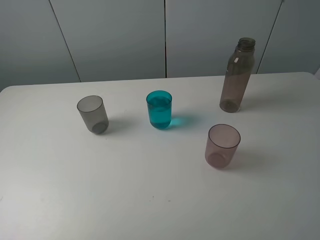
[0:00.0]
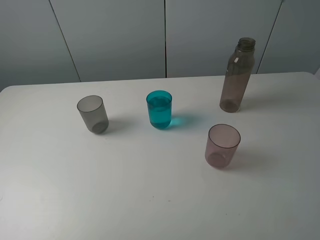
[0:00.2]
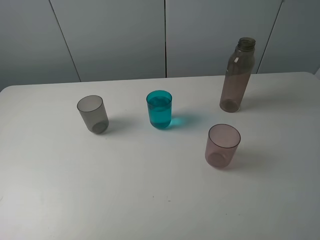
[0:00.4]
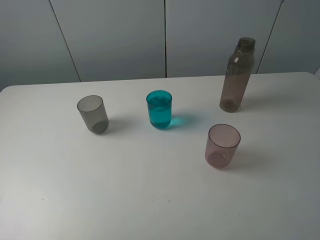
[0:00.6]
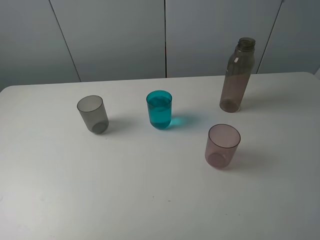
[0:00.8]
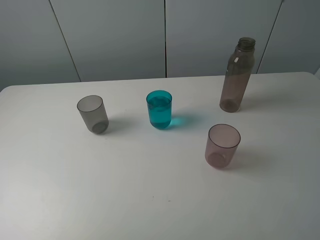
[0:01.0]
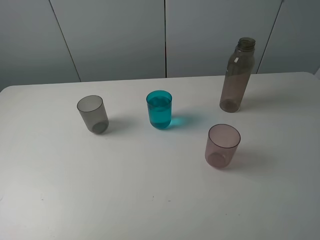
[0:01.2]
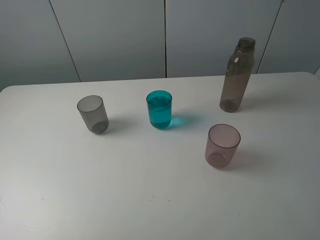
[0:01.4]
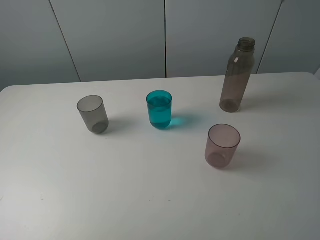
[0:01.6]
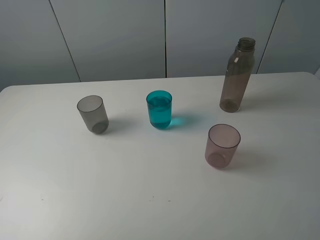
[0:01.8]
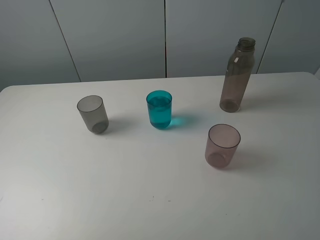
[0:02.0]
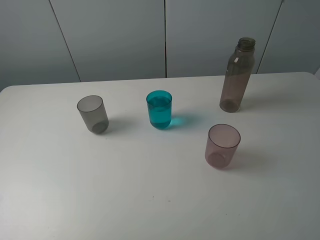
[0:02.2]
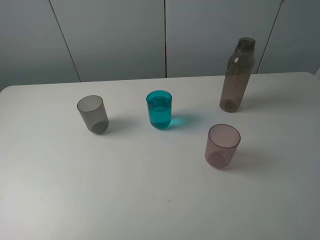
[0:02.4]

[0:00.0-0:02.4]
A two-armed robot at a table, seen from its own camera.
Task of the whole recording: pick up the bottle filled with water and pour water into the middle cup of the three cups.
0:01.2 to 0:02.4: Neither gripper changes place.

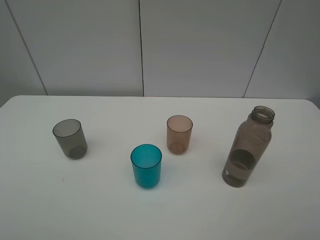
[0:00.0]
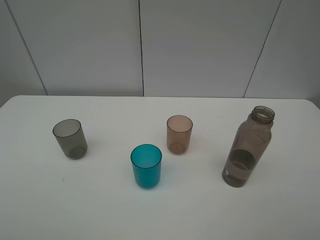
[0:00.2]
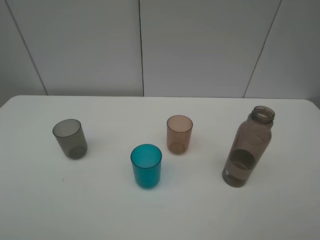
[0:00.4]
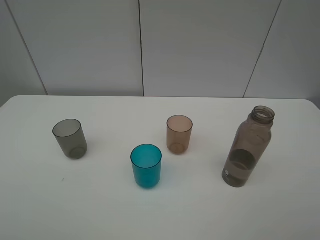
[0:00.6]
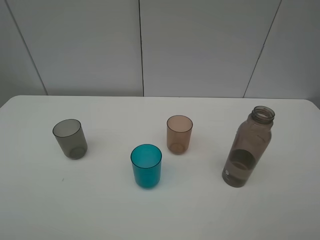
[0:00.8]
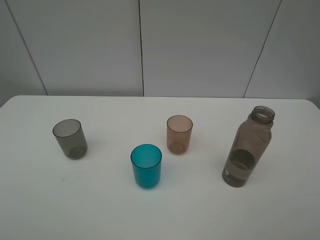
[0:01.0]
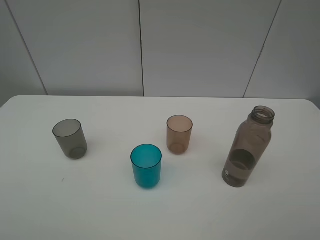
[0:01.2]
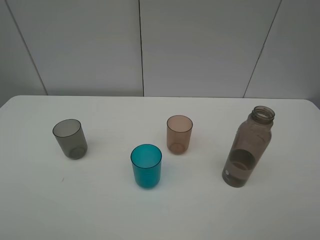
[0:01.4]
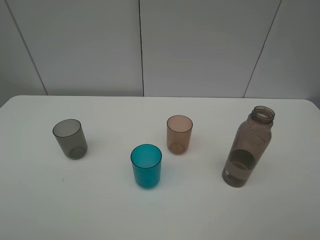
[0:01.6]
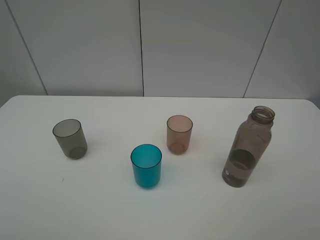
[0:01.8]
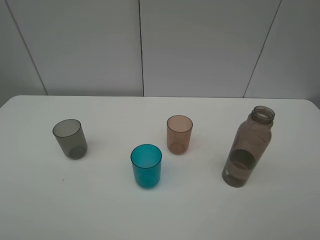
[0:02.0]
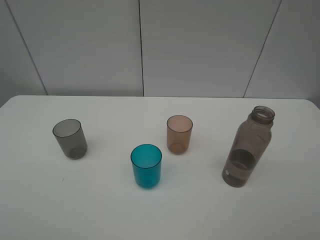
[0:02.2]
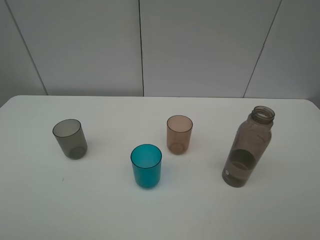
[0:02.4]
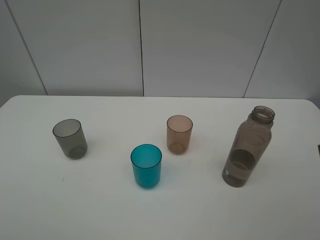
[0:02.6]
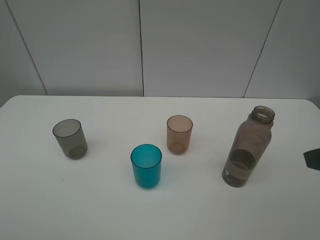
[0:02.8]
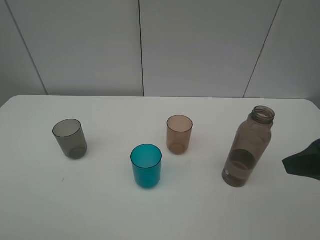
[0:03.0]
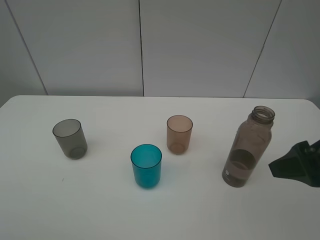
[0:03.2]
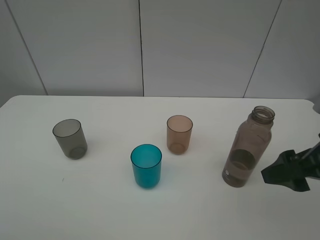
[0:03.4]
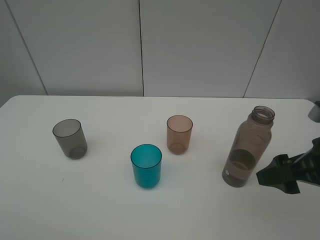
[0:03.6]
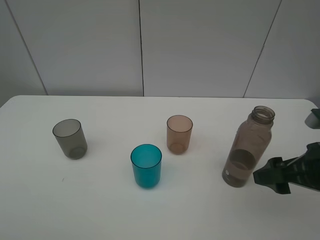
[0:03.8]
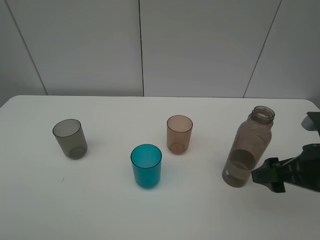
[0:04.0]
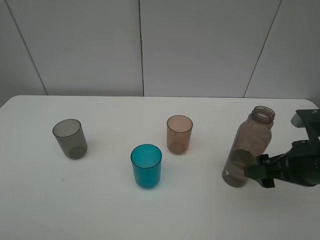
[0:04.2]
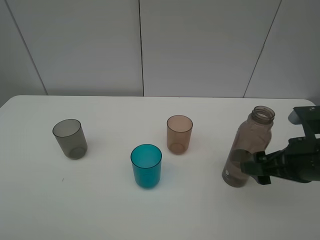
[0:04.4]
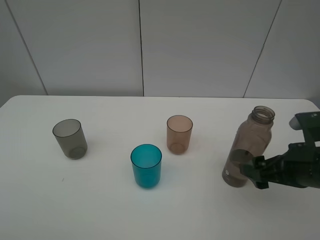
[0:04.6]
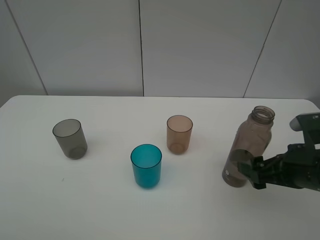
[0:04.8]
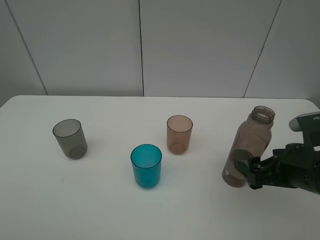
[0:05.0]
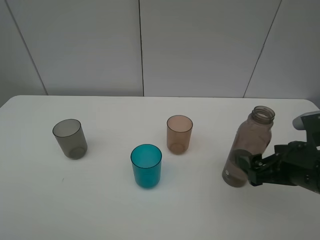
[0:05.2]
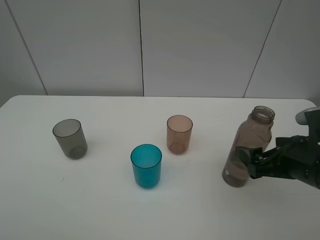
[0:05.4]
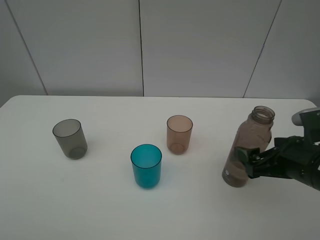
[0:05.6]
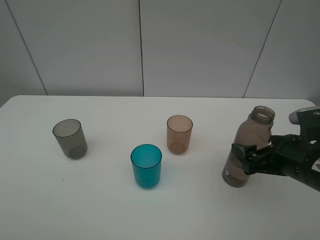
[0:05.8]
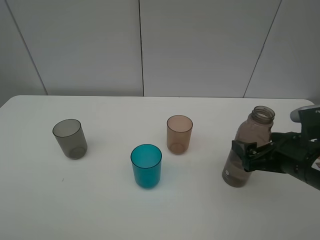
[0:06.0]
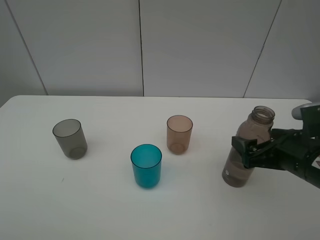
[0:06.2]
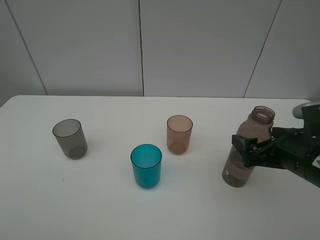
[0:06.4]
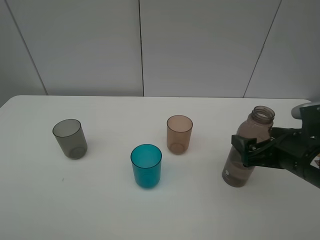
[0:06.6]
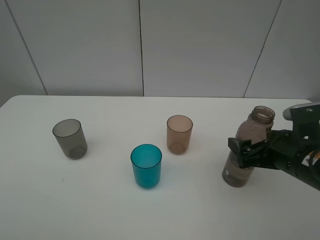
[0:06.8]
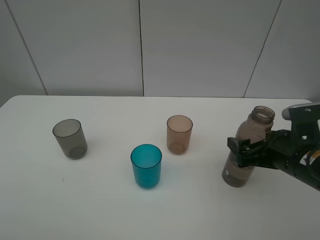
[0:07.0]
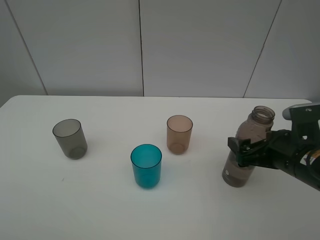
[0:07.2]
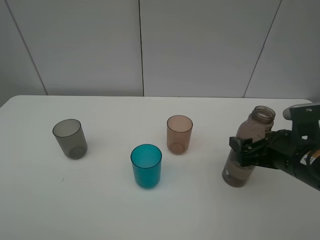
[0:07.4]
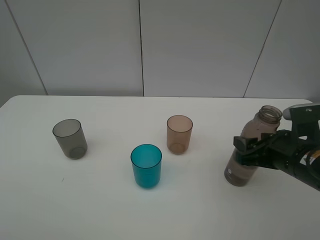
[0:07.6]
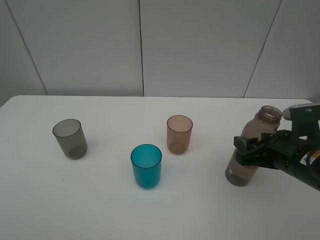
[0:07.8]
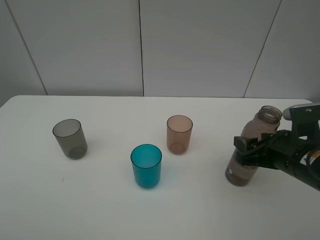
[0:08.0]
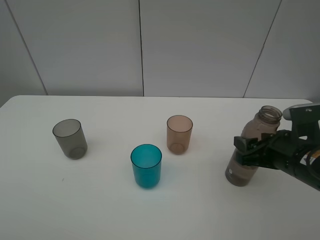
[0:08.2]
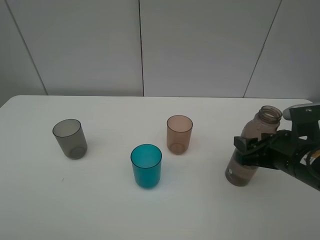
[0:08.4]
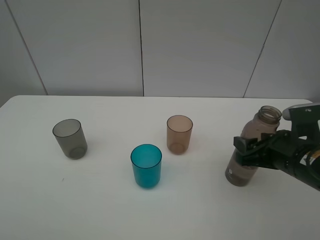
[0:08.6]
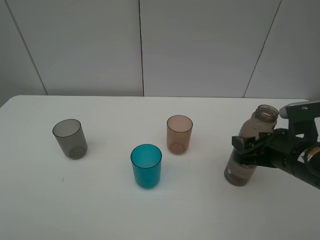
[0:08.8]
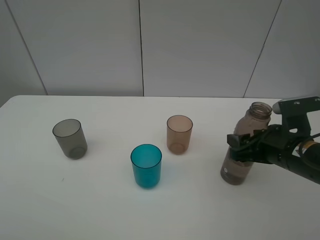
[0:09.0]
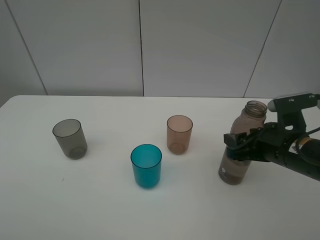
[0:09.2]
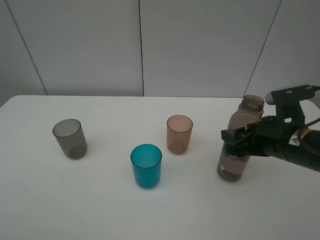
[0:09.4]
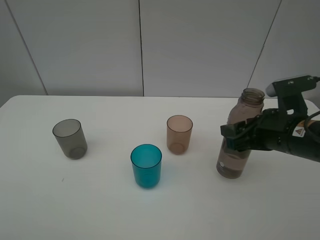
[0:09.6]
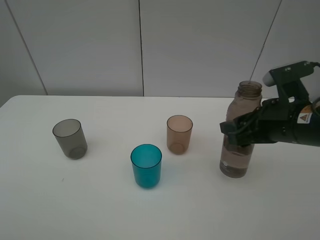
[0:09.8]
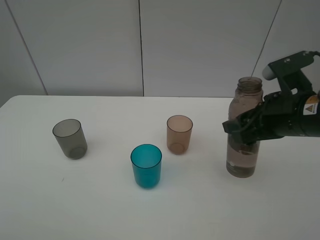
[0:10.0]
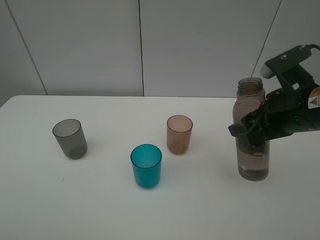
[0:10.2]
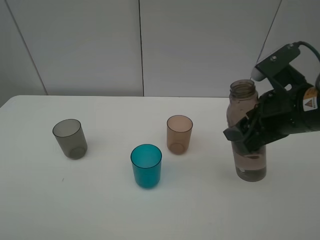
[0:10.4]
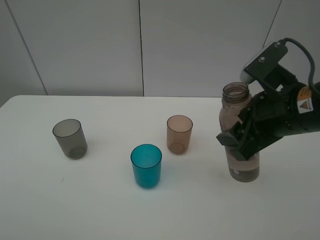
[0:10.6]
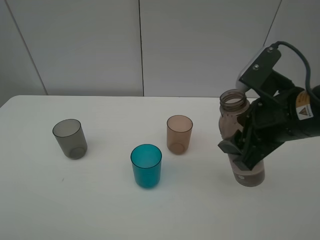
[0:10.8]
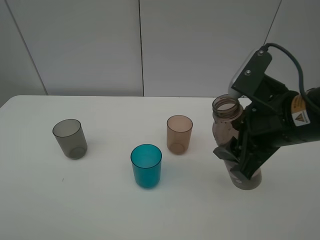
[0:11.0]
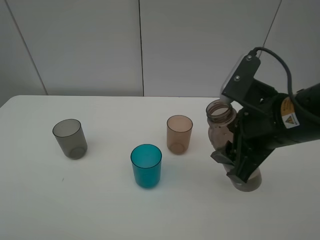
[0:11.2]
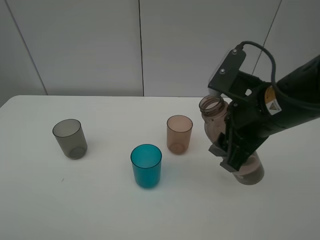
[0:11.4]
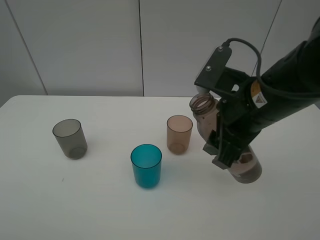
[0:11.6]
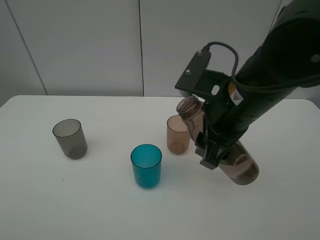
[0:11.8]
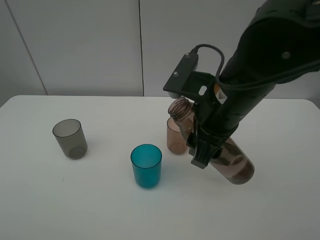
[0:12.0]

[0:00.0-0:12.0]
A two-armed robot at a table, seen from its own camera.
Task of the whole recording: pick up the bottle filled with water and pour water into the middle cup of the three cups.
Step, 0:00.0 to 0:09.0: Grasp the brown bottle with the right gripper.
0:00.0 to 0:01.6: Both grippers stay put.
0:01.6 to 0:03.0: The right gripper heads forward, covering approximately 15 cm.
0:03.0 to 0:04.4: The right gripper shifts approximately 10 cm downward.
0:06.0 to 0:07.6: The right gripper closes up.
0:07.6 to 0:09.0: The grippers make only small movements.
0:09.0 to 0:10.4: The right gripper moves upward, about 10 cm.
0:10.4 to 0:12.0: The right gripper heads to the left, covering roughly 10 cm.

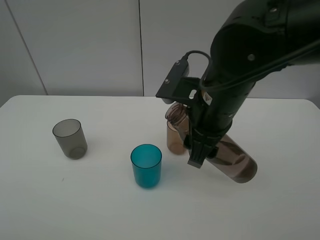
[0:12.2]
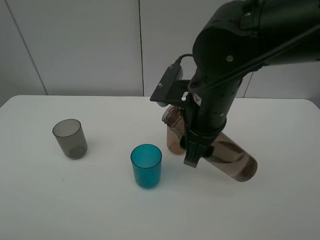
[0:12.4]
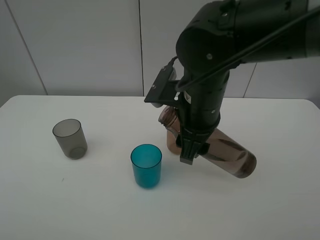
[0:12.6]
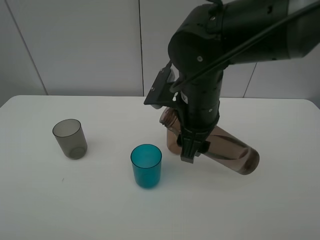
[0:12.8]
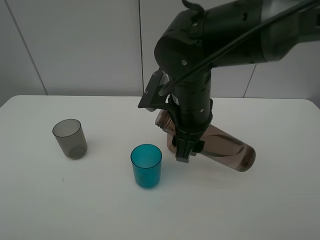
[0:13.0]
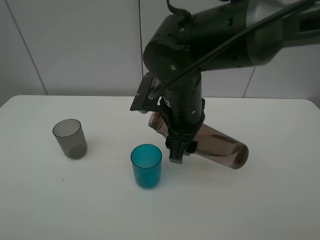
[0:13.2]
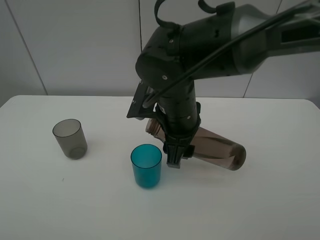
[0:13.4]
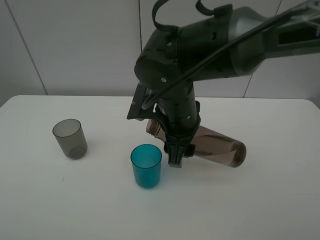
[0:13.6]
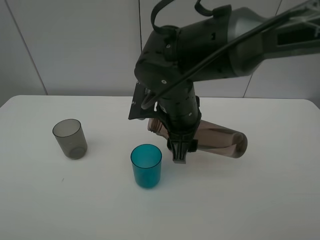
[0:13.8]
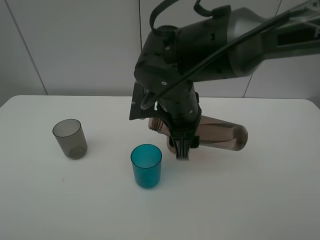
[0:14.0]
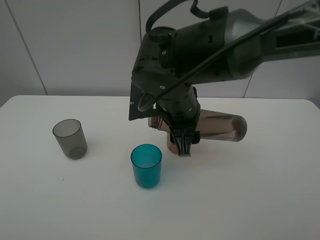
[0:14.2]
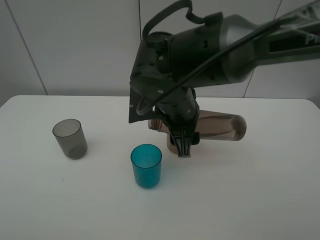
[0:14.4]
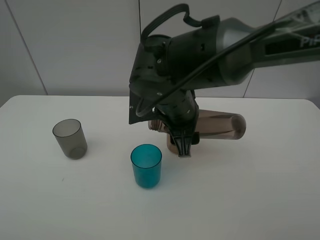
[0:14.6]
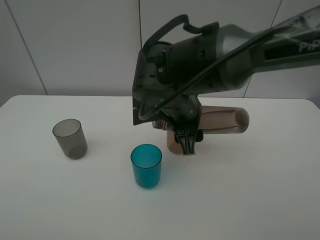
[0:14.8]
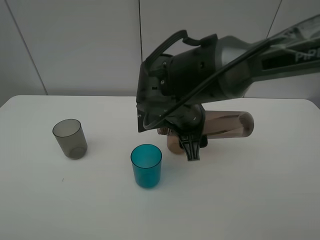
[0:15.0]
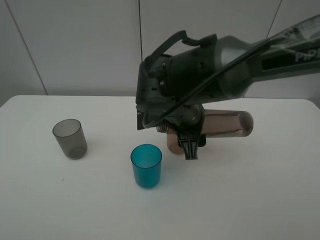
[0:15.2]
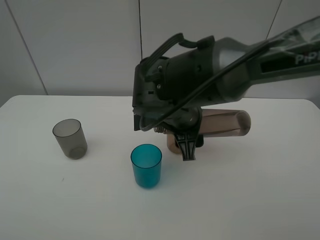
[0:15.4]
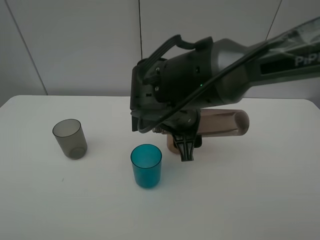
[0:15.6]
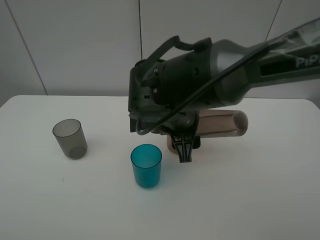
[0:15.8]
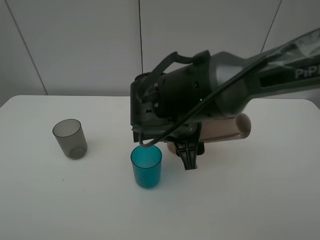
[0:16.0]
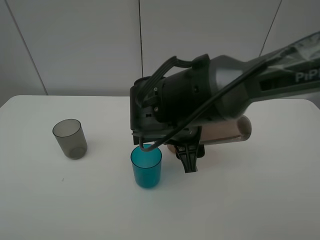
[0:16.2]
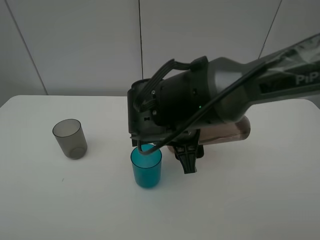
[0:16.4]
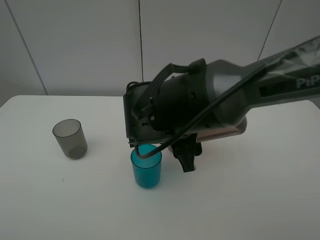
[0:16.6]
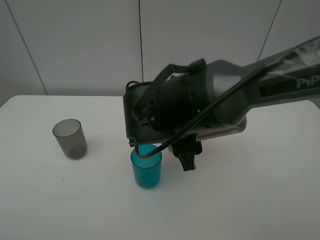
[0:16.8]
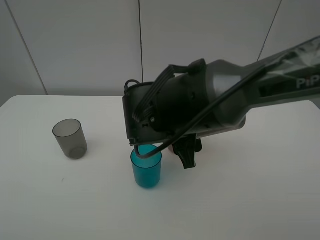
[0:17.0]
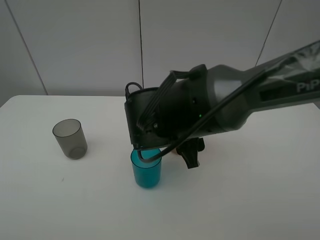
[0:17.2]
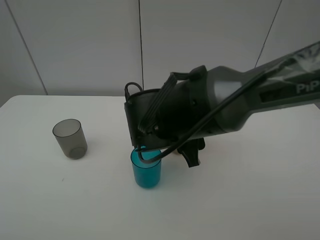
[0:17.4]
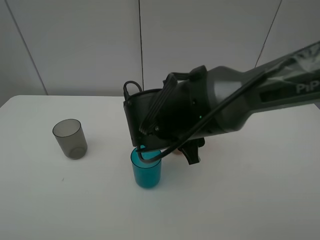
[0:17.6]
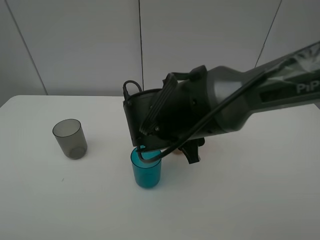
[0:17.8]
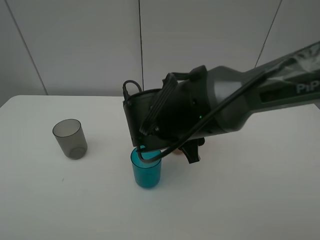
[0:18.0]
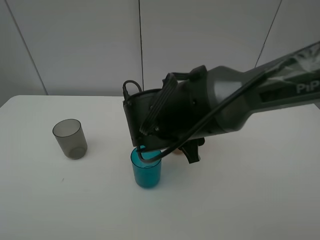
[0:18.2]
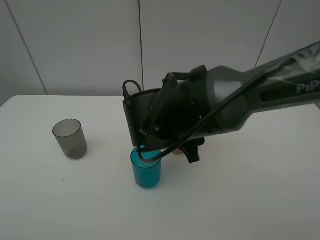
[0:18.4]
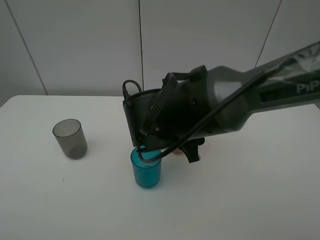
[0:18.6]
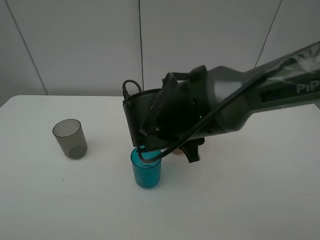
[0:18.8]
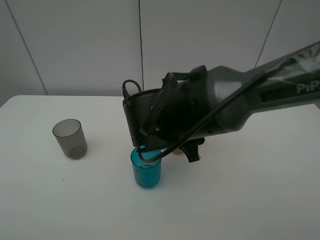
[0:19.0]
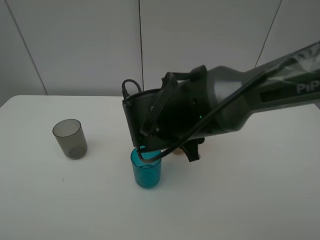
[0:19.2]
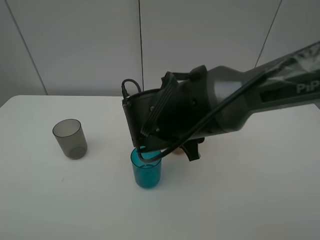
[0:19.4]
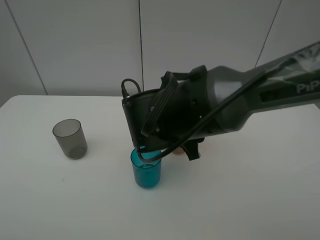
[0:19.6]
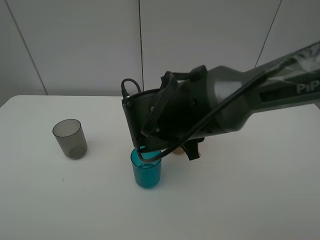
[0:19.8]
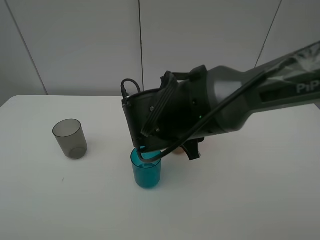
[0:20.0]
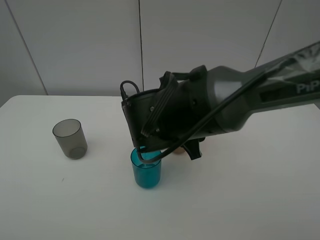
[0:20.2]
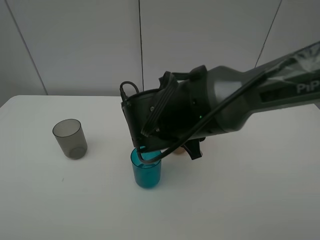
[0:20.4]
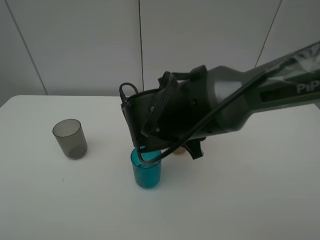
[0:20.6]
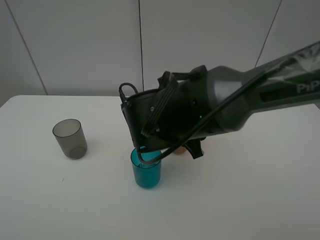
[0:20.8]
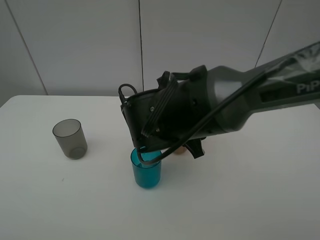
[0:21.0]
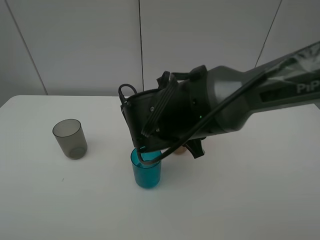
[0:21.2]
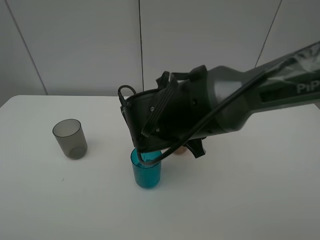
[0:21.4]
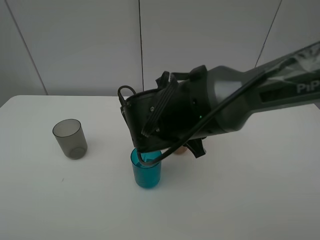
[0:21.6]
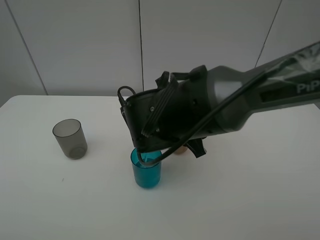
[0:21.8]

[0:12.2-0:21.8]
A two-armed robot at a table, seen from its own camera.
Task of the whole recording: pick up the bottle filled with water and pour water into the middle cup of the three cups.
Step, 0:12.2 to 0:17.4: Pour water from transparent bottle to blue cup with the right gripper.
0:12.2 to 0:13.8: The right gripper moves to the left, roughly 5 cm.
0:13.8 to 0:15.4: The grippers make only small movements.
0:15.4 to 0:18.6: There are only small adjustments of the grippers.
0:18.6 to 0:20.2: Neither gripper changes place.
